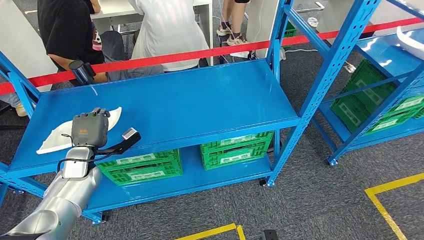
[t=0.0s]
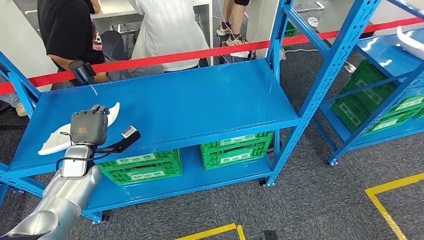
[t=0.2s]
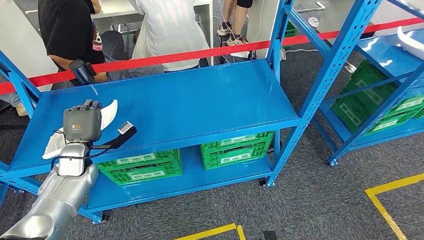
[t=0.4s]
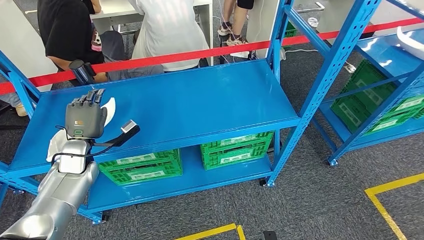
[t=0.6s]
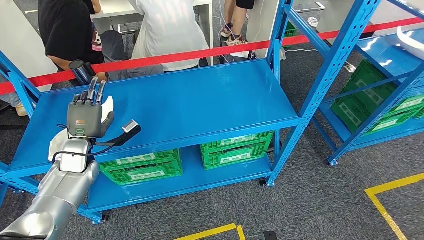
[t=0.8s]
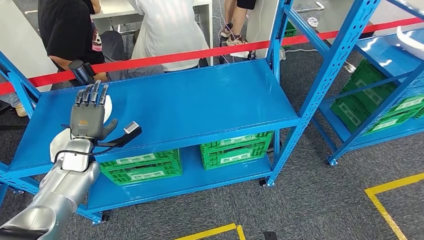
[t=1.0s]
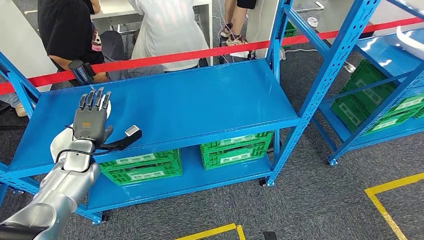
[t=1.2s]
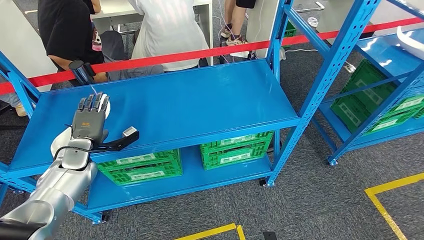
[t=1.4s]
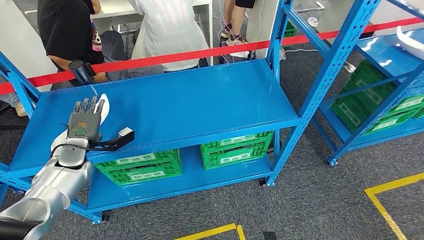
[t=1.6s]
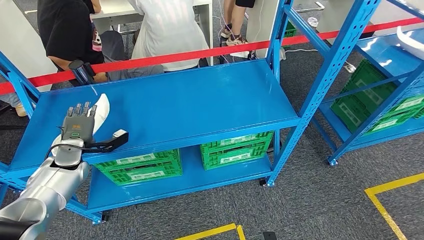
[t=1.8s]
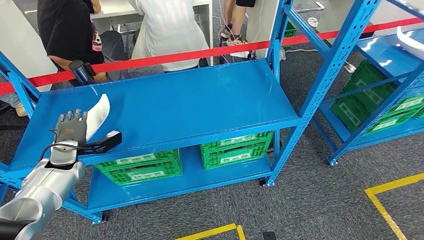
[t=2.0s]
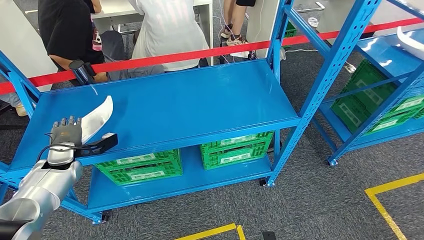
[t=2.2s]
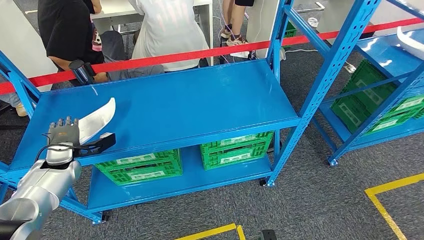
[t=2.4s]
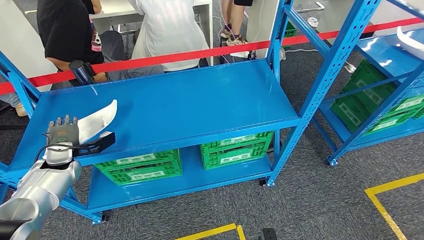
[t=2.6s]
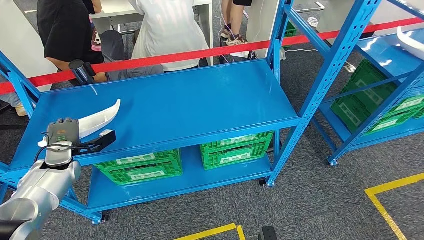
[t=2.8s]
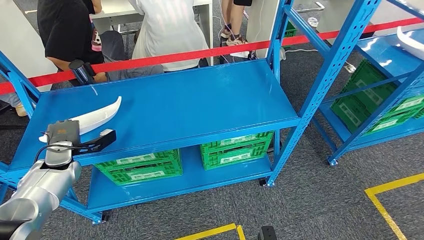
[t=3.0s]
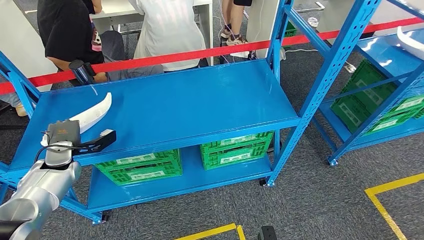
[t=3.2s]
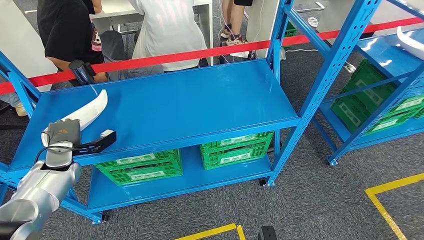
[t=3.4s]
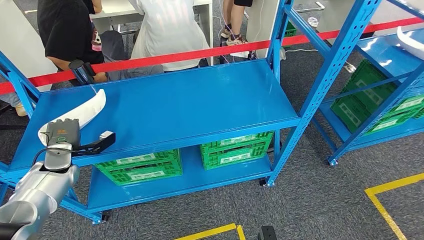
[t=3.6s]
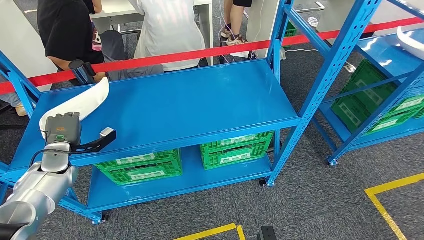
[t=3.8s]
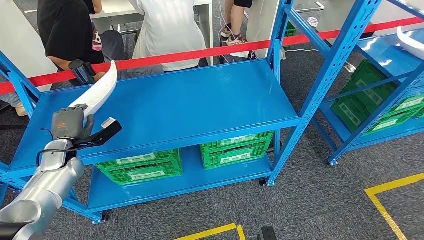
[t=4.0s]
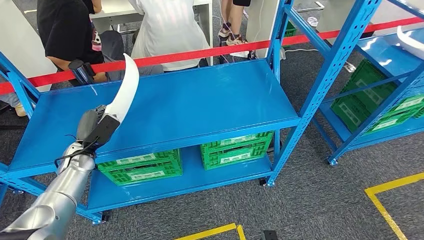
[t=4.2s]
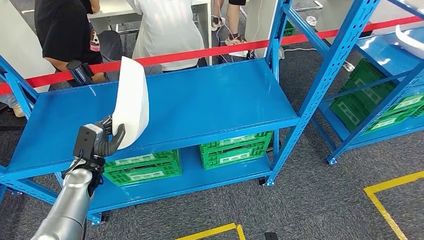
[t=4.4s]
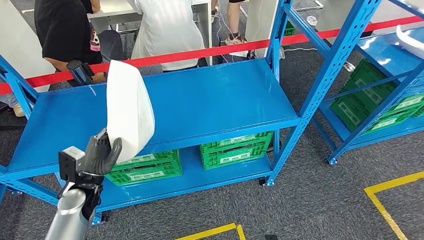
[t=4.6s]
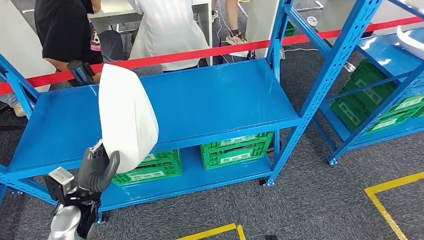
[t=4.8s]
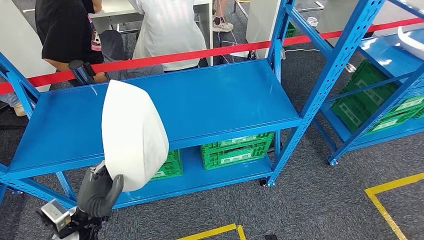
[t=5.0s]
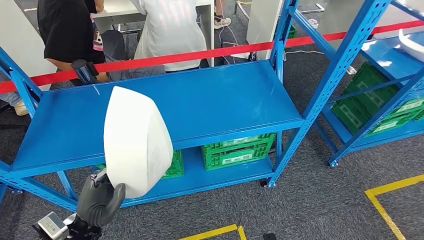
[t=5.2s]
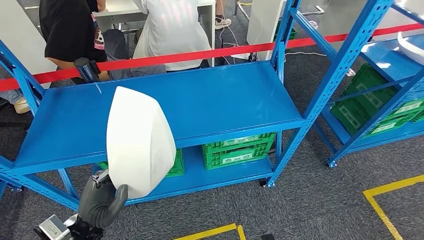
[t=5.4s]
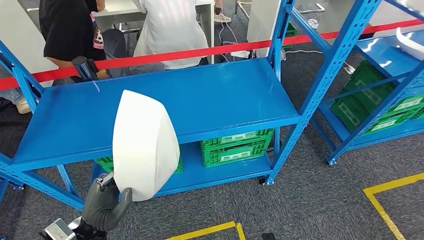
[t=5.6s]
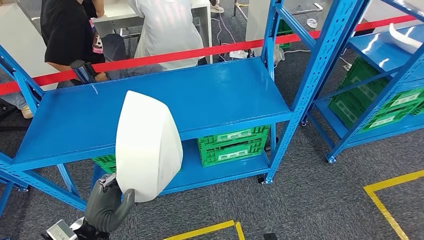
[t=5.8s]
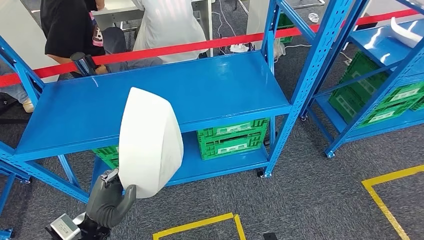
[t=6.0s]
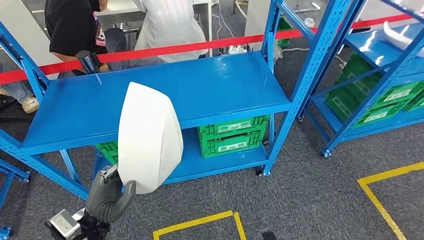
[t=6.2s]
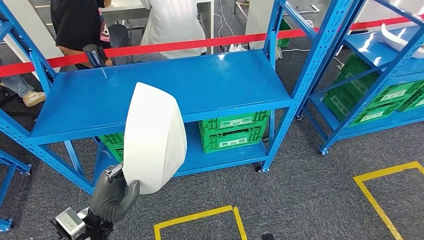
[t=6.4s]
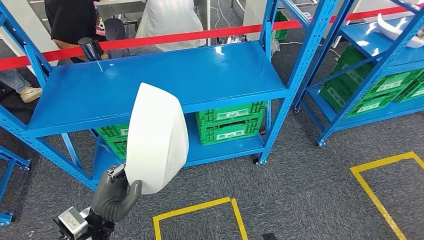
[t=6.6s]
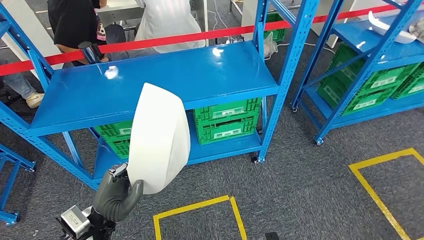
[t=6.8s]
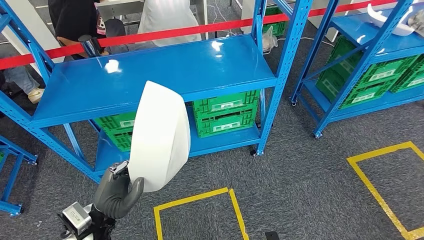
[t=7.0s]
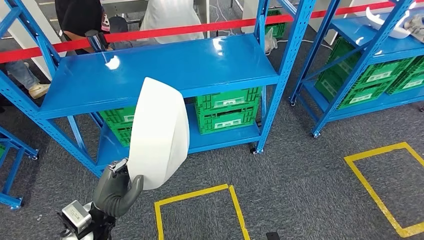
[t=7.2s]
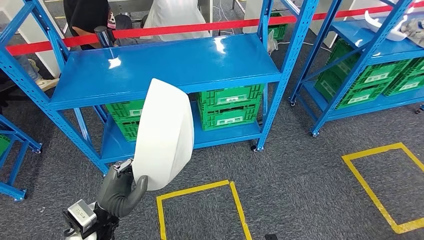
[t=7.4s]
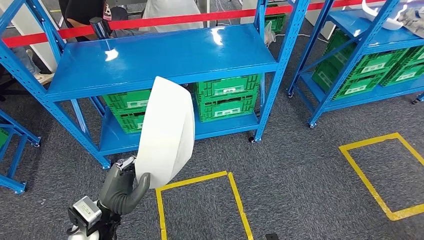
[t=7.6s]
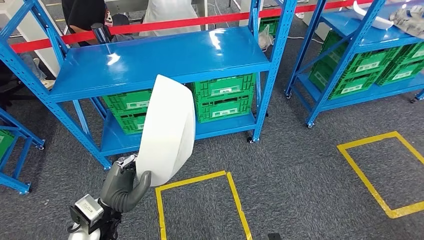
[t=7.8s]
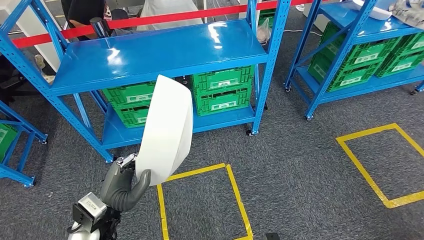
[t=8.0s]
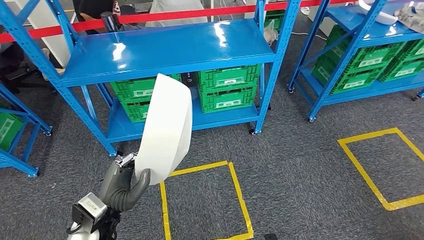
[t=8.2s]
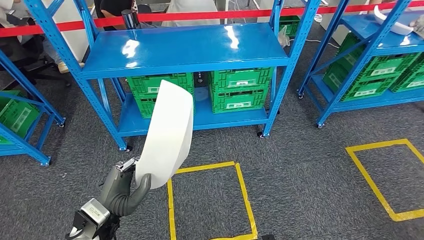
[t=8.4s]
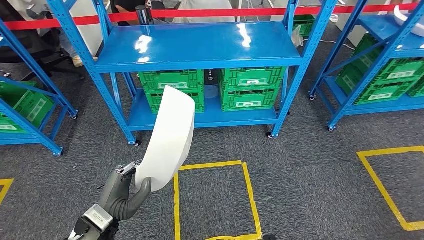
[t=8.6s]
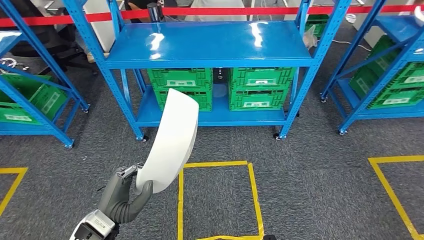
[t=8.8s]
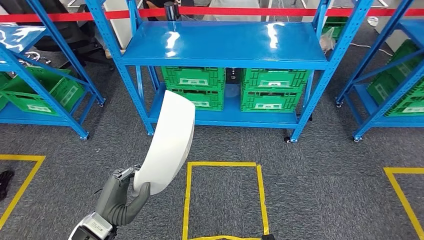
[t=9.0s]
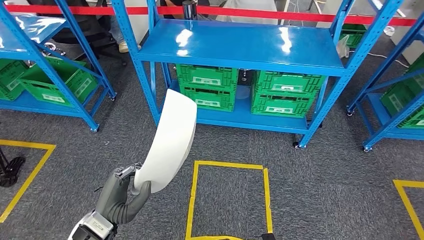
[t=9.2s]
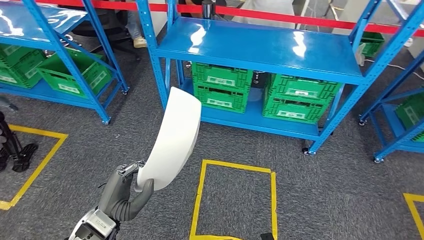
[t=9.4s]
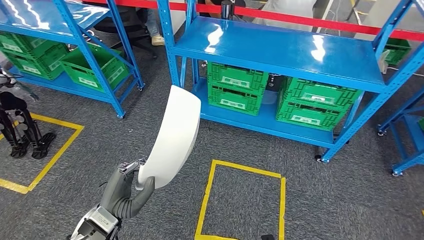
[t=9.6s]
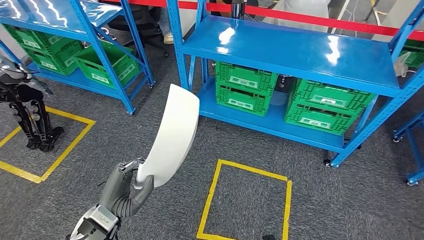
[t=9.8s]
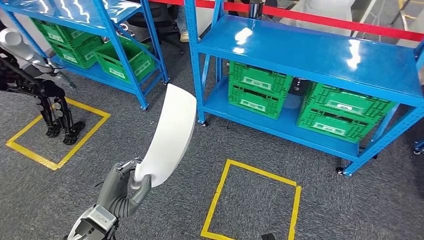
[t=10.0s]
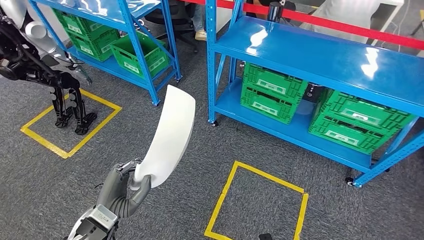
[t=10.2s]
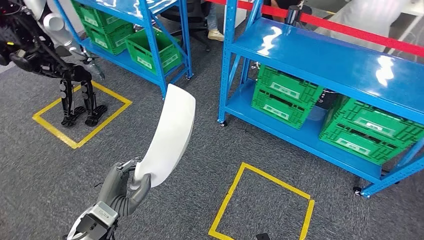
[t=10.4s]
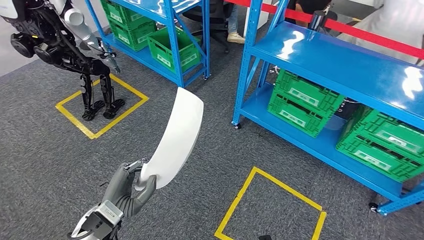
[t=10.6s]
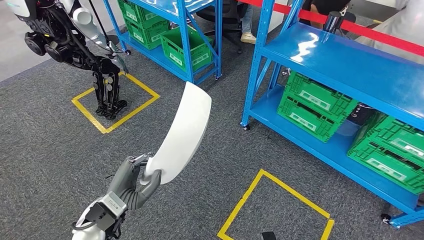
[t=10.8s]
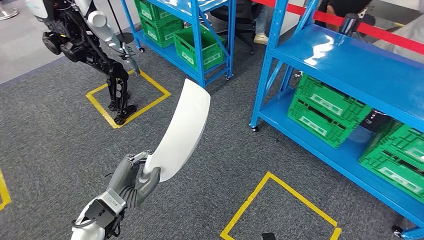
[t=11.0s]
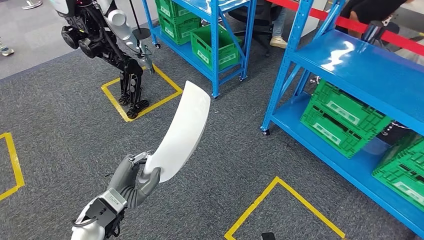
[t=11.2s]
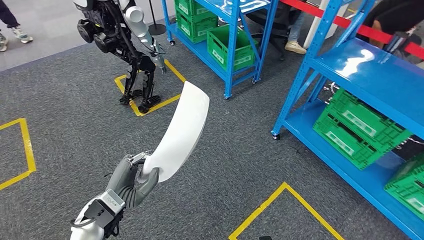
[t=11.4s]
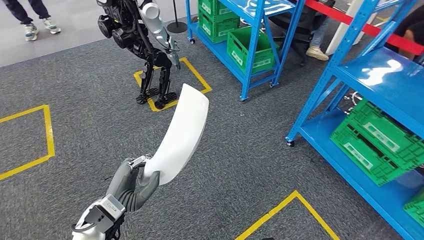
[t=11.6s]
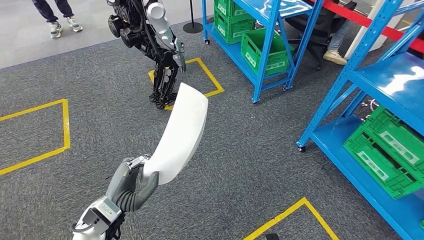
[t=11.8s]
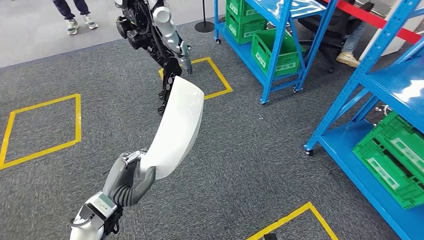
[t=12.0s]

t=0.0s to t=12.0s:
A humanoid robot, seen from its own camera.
Step, t=0.0s to t=6.0s: Pick up the large material from the shelf.
t=3.0s to t=4.4s: The left hand is displaced to the right by some 5 cm.

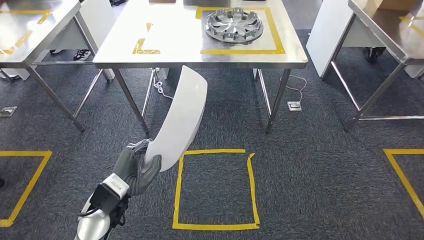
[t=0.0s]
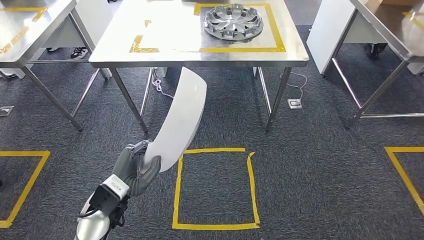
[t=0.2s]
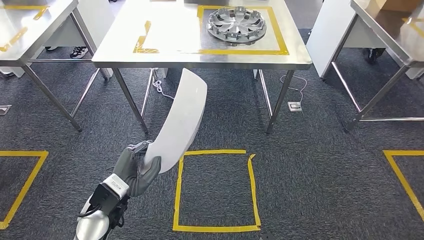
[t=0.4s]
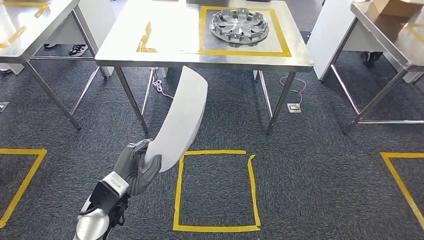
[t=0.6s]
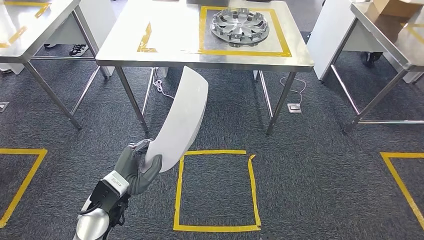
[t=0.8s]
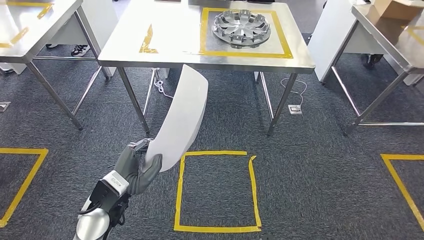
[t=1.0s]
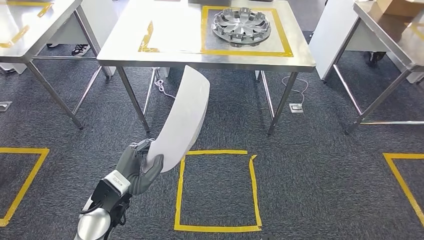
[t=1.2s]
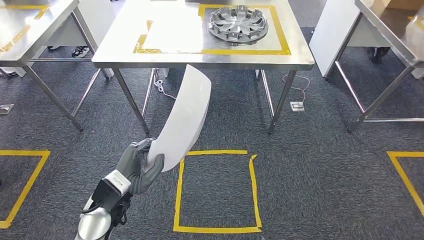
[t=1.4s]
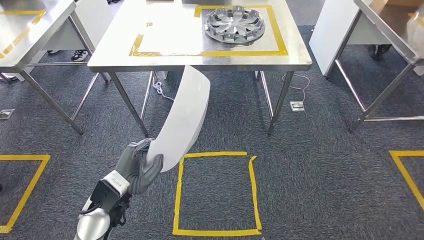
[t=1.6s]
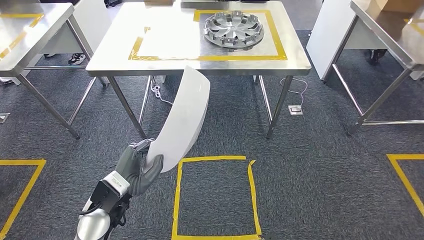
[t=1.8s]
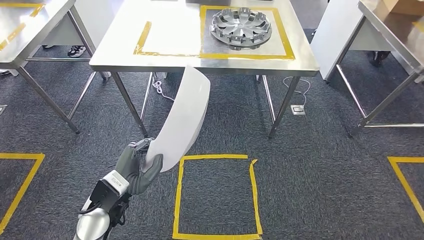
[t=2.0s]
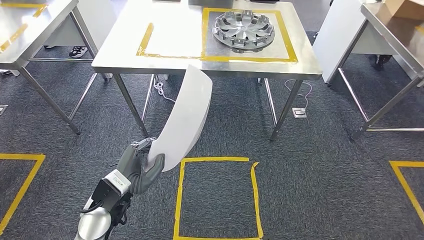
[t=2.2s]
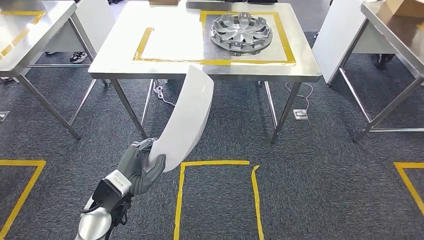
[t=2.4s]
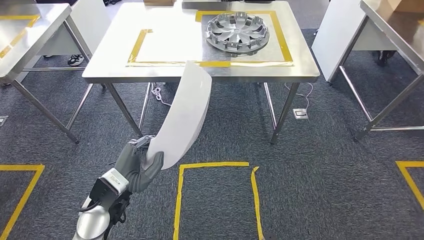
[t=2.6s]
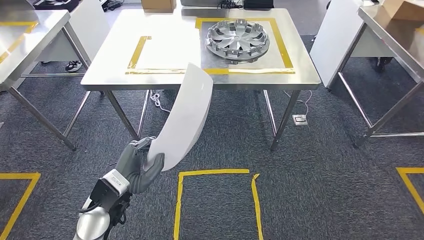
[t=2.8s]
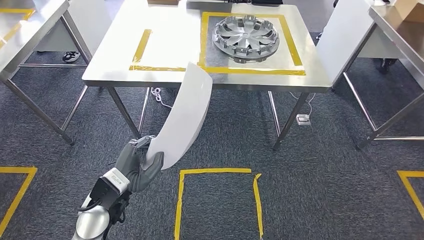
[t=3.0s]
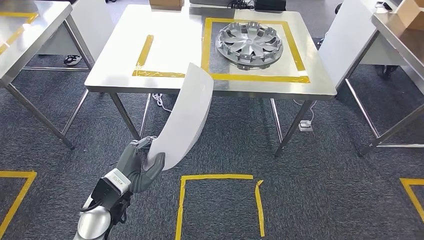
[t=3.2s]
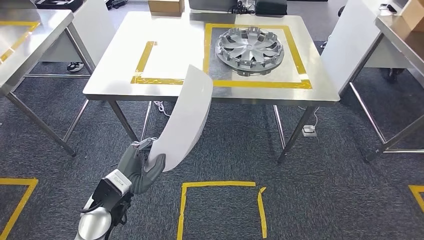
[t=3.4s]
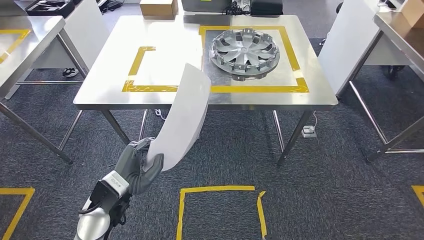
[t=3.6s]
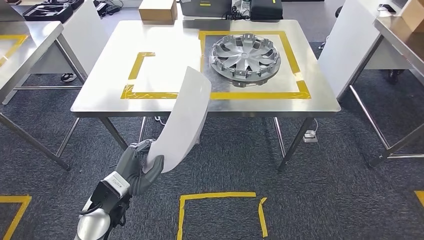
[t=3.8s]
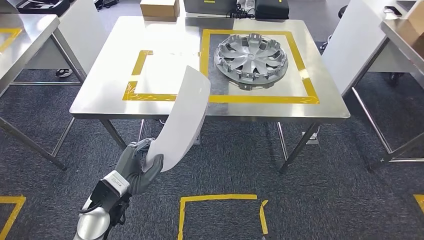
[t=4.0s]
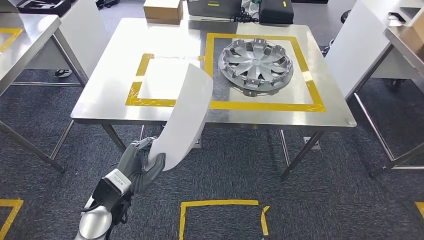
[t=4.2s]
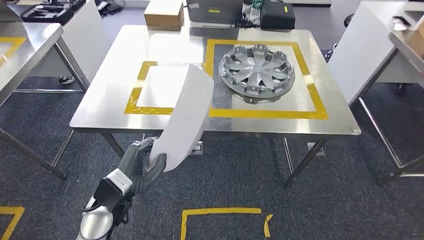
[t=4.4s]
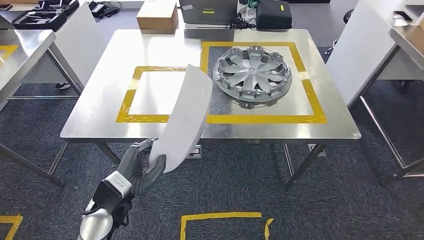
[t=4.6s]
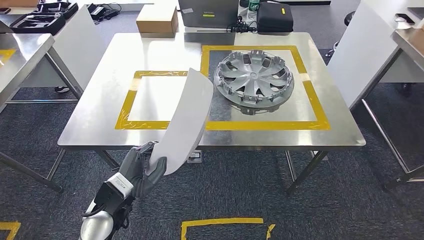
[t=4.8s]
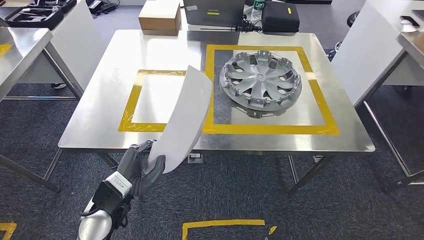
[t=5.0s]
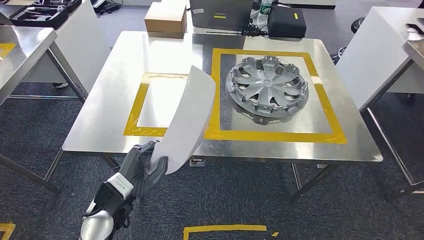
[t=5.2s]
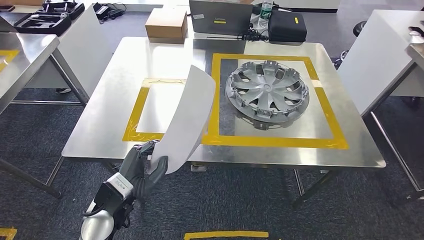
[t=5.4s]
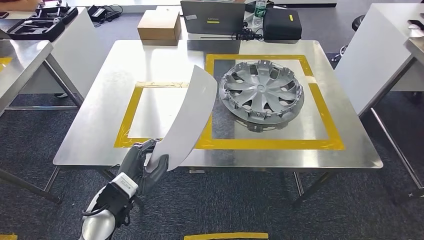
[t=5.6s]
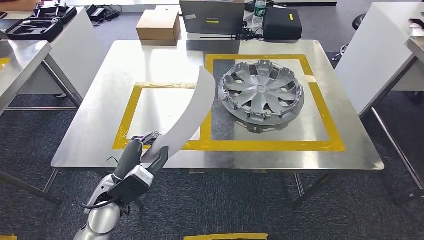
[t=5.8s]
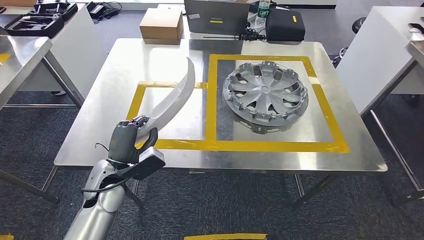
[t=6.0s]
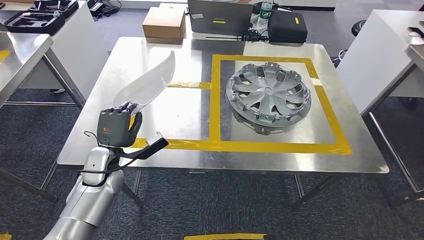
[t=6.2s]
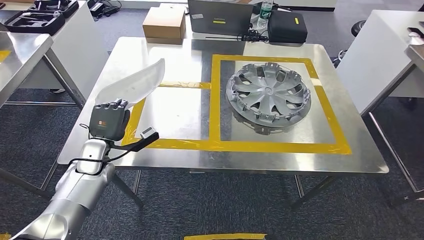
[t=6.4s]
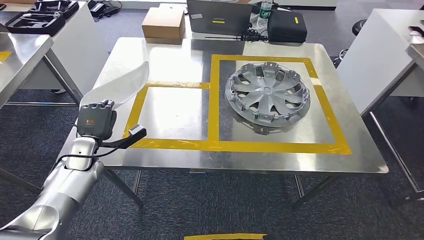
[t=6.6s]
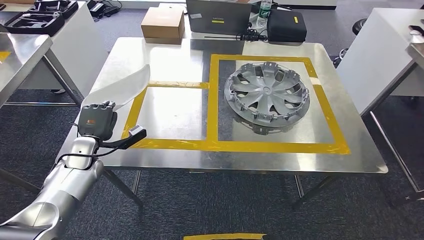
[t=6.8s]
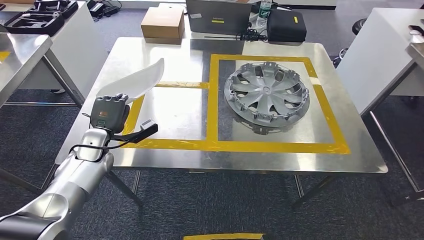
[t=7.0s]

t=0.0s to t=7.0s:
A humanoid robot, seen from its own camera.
Step, t=0.0s to t=5.2s: Move the large material to the front of the workbench.
t=0.0s to t=1.4s: The two hands keep their place.
